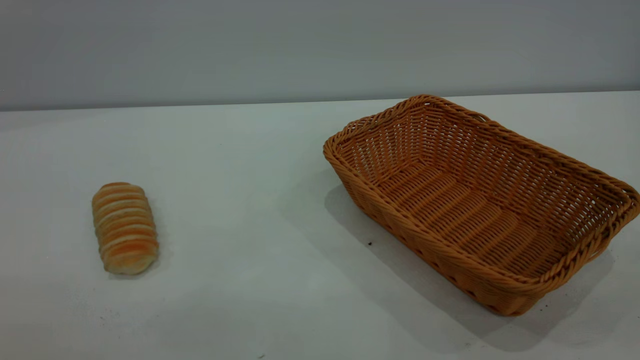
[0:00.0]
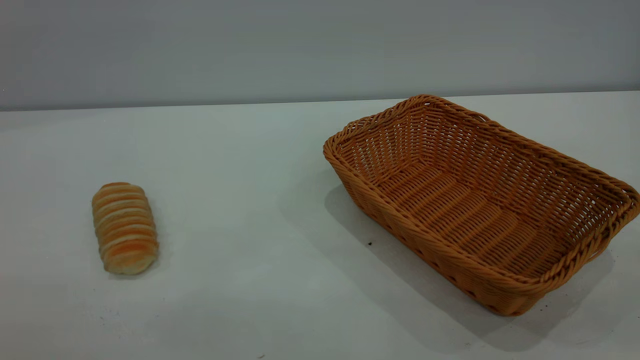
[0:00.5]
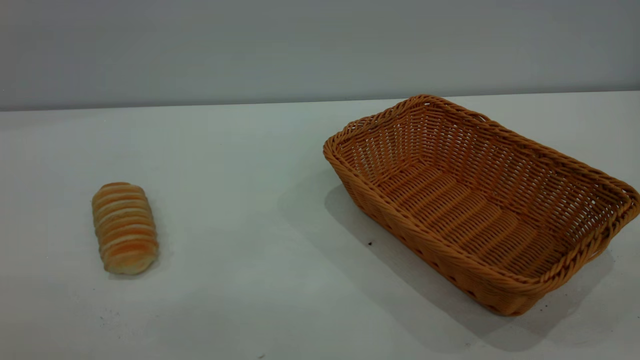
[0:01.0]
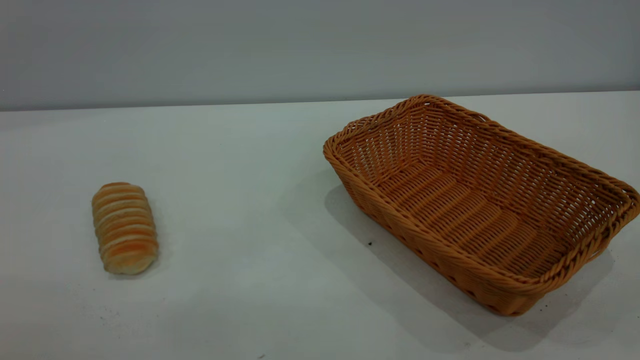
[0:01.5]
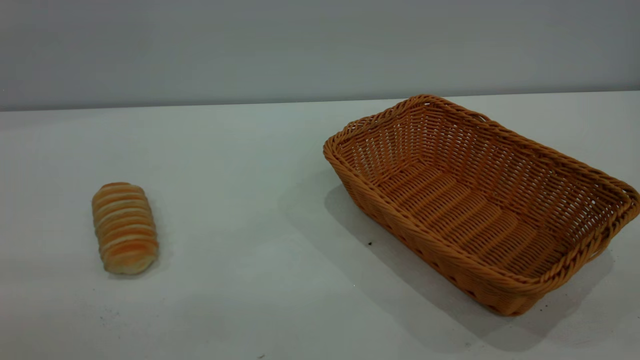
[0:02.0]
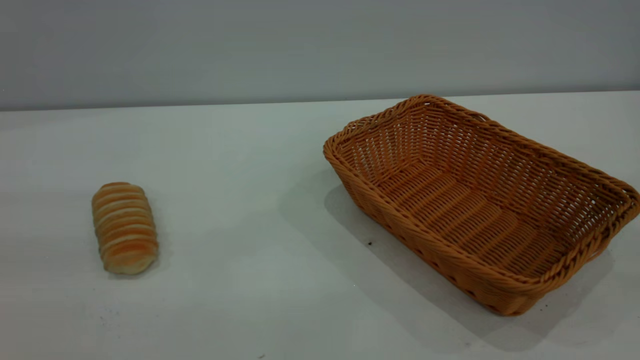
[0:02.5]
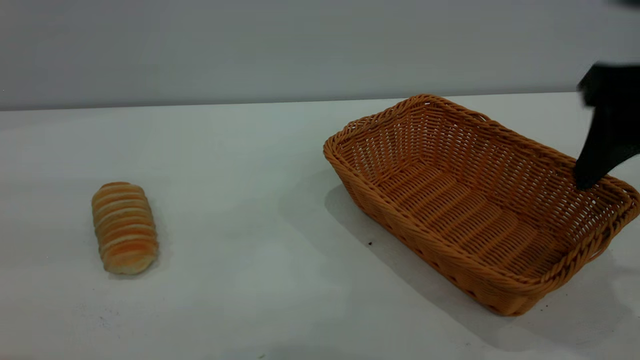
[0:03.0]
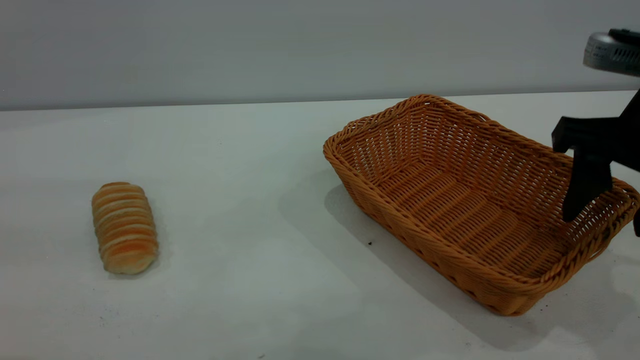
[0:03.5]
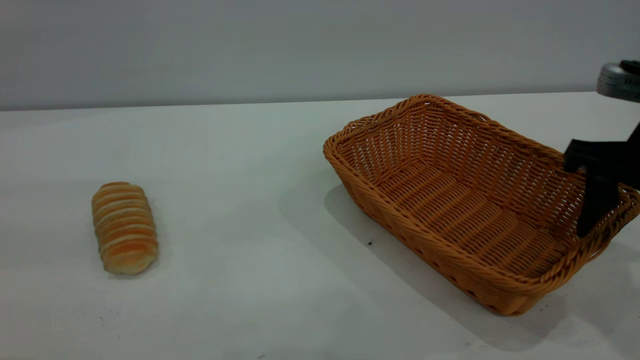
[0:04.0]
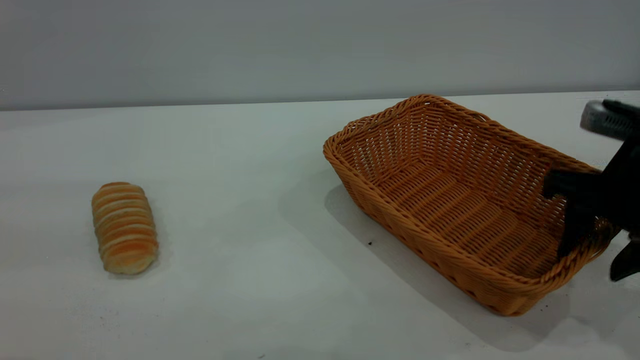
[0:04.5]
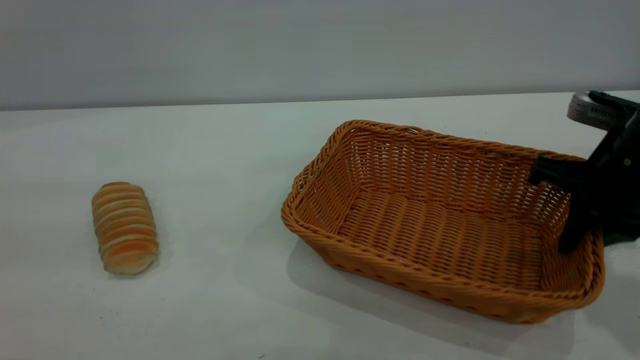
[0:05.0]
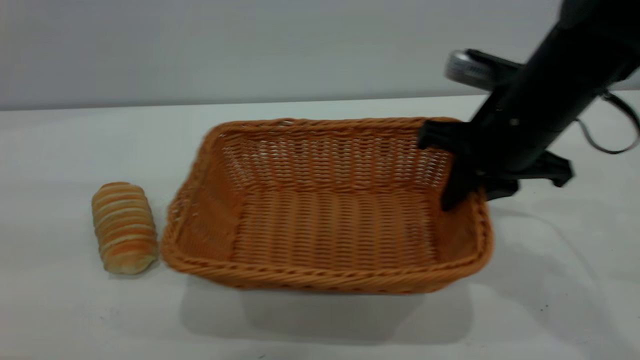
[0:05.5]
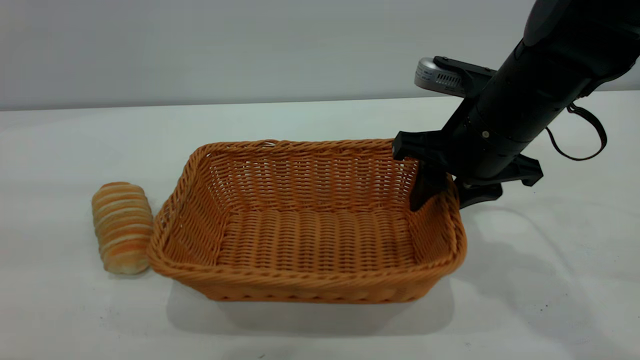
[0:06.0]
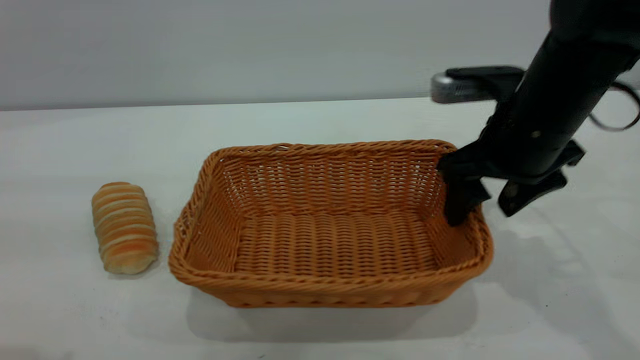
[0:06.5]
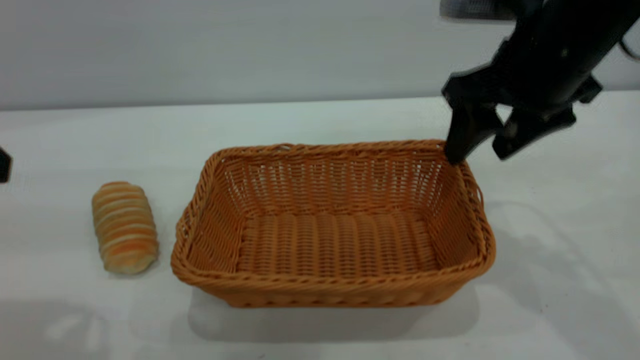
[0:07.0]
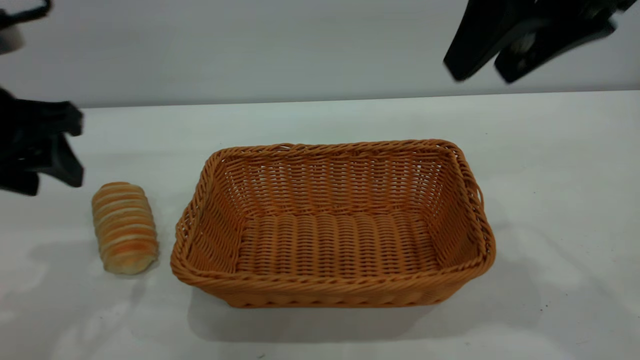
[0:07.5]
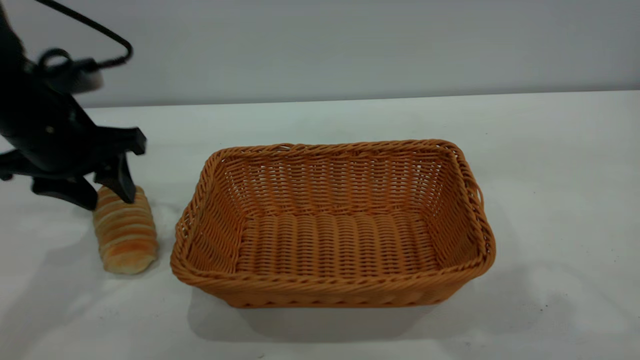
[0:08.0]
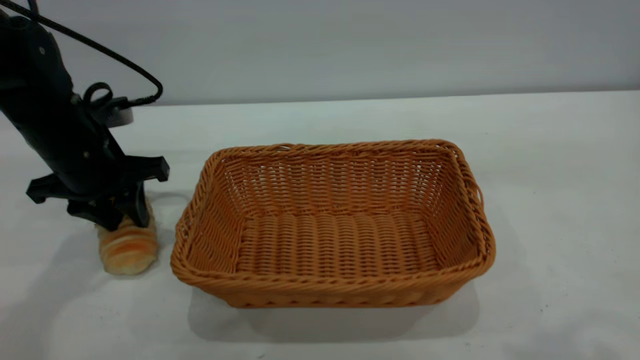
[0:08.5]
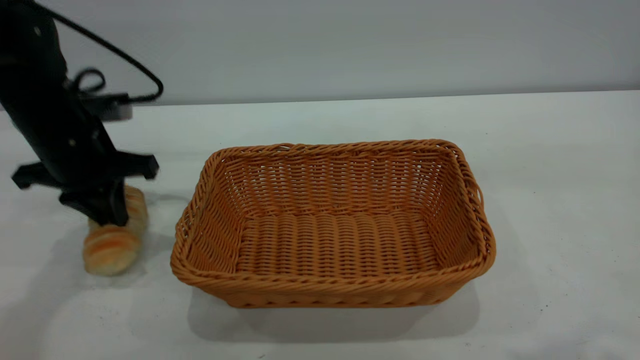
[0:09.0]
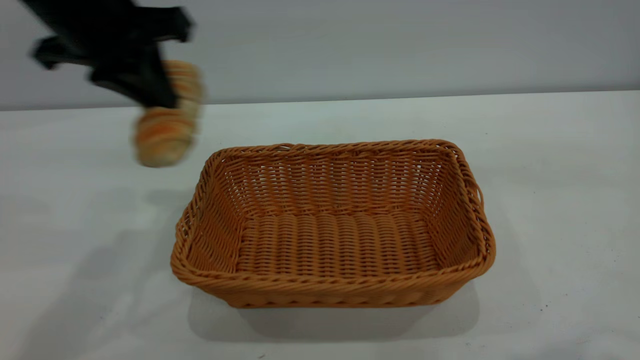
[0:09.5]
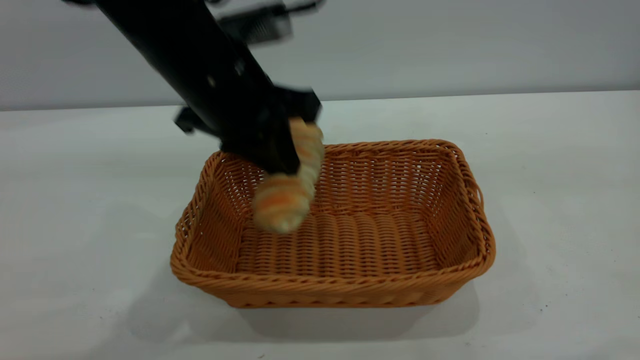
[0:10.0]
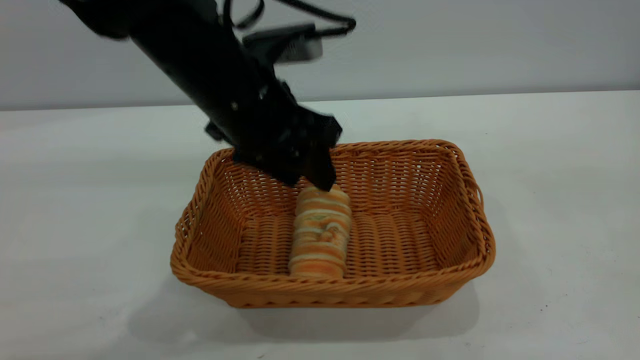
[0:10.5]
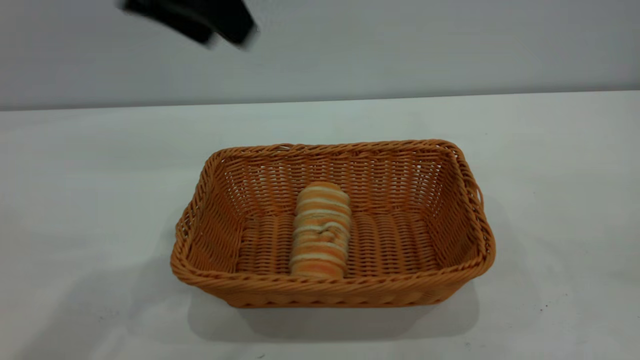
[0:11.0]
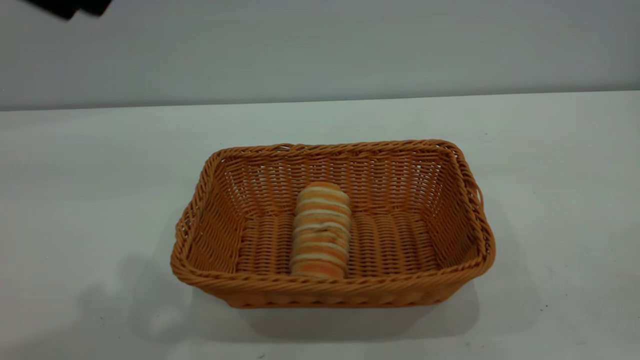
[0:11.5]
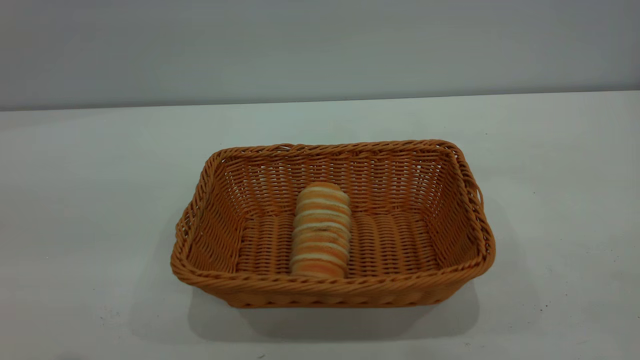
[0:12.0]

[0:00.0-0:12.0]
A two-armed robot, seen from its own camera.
Task of the whole recording: One hand grasps the yellow basket and places it in the middle of the table, while the other hand picks up the long bread and puts it into the yellow basket.
Step, 0:00.0 to 0:07.0: Move the basket to the center of view.
Step, 0:09.5 to 0:10.5: place the bread into the basket.
0:02.0 to 0:04.0: The right gripper is displaced forward and downward by about 30 cm.
0:04.0 to 0:06.0: The right gripper moves to the left and forward, about 15 cm, and closes, then opens again.
0:06.0 to 0:08.0: The right gripper moves upward and backward, some 30 cm. Meanwhile the left gripper heads forward and downward, covering some 25 cm.
0:08.0 to 0:10.0: The right gripper shifts some 10 cm backward and upward; the left gripper moves to the right, some 15 cm, and closes up.
0:10.0 to 0:12.0: The right gripper travels downward, backward and to the right by roughly 20 cm; the left gripper shifts approximately 30 cm backward, upward and to the left, and opens its fingers.

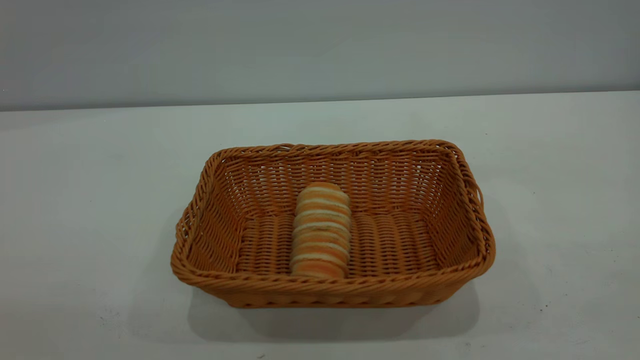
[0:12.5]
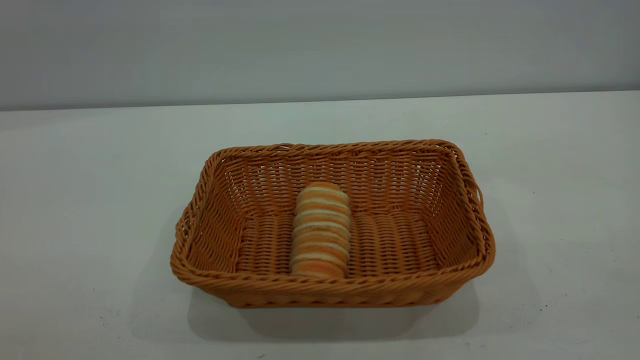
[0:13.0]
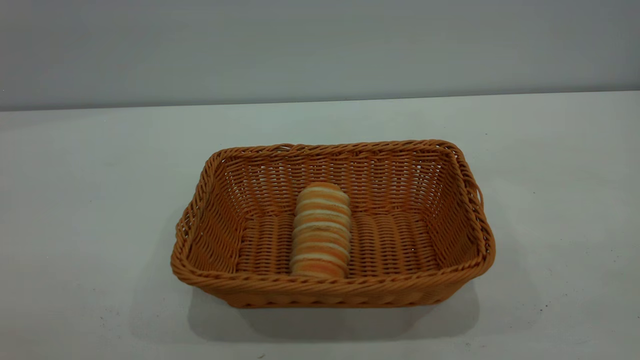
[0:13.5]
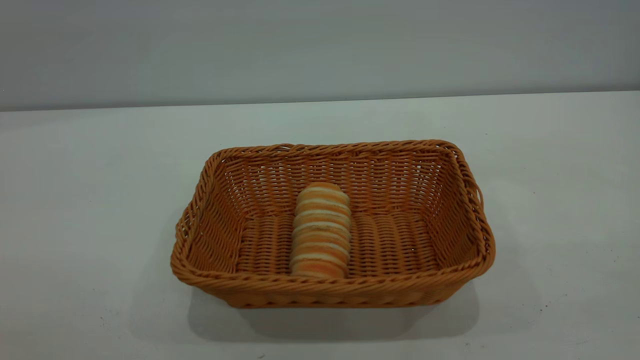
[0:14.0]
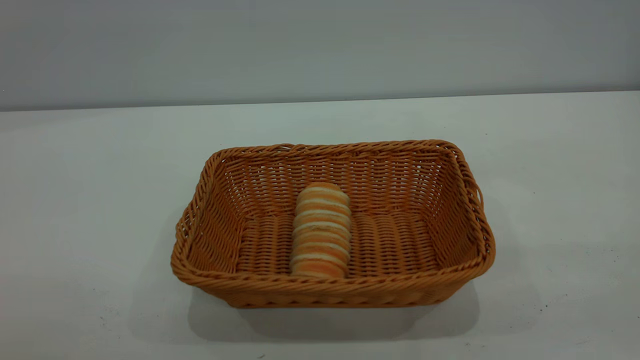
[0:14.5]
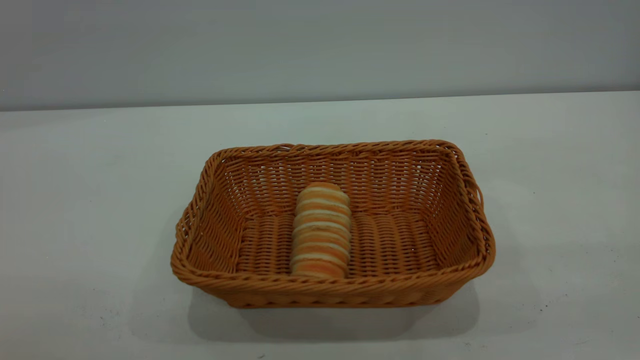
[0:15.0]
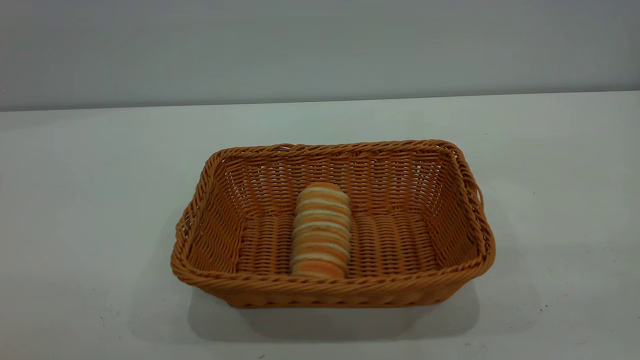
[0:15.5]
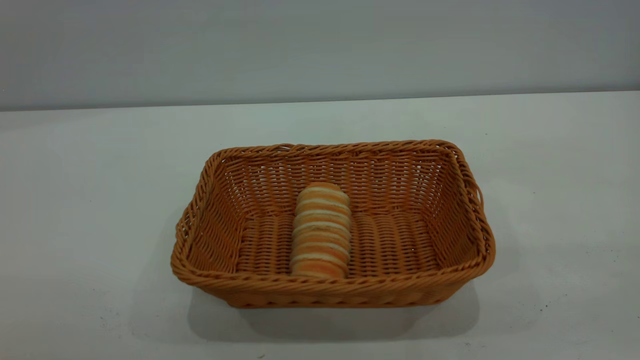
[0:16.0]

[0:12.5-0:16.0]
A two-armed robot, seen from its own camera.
Task of the whole recording: One hand grasps the yellow basket and places it in the middle of the table, while the other hand picks up the long bread and puts it into the yellow basket.
0:14.5 to 0:16.0: Neither gripper changes place.

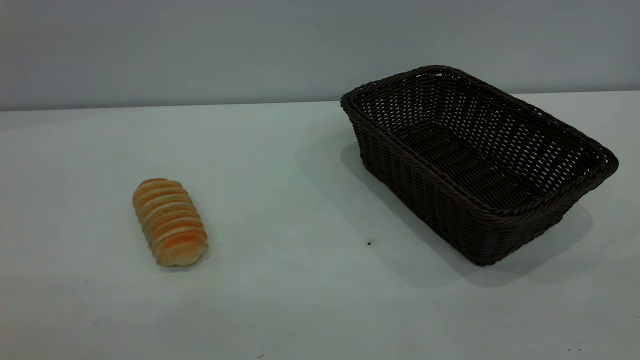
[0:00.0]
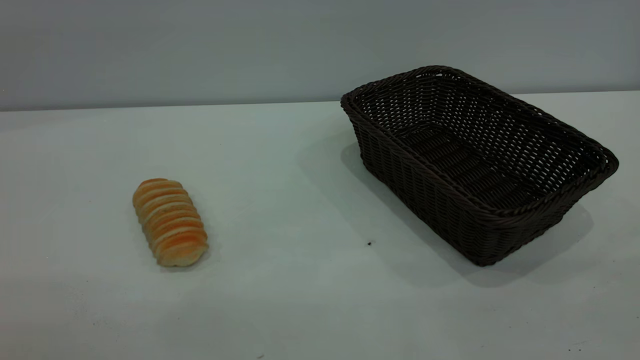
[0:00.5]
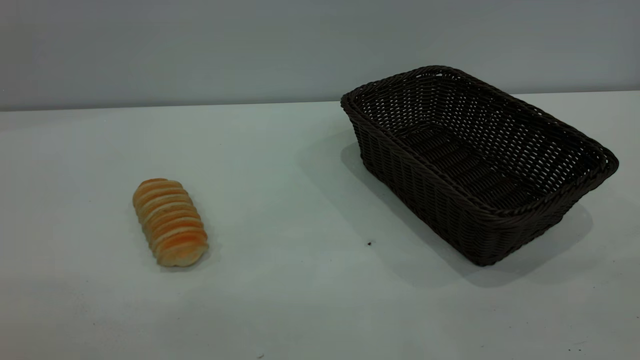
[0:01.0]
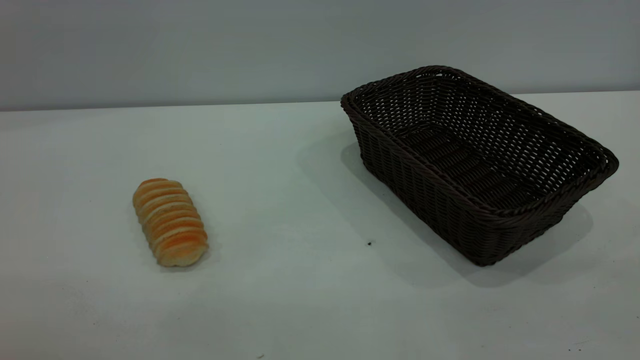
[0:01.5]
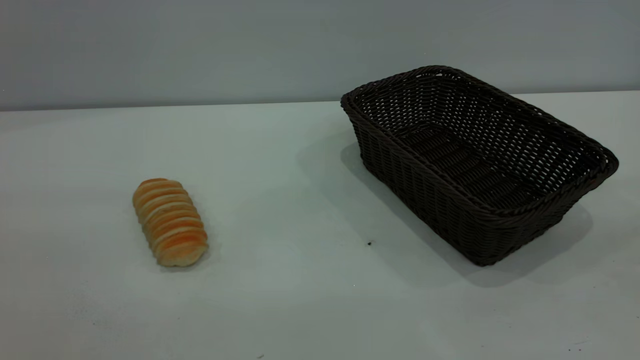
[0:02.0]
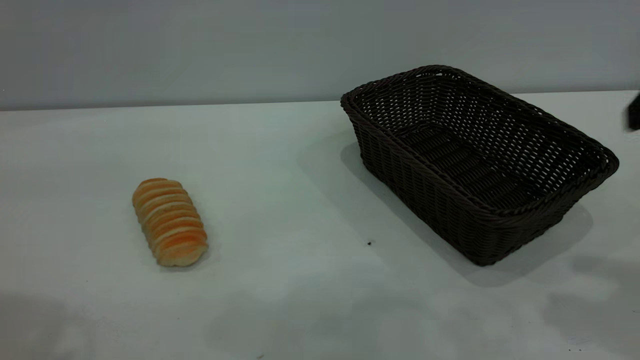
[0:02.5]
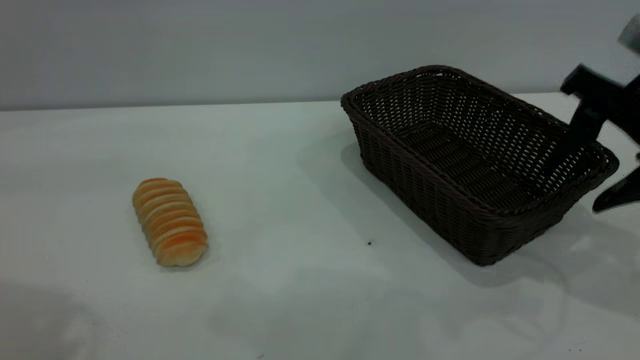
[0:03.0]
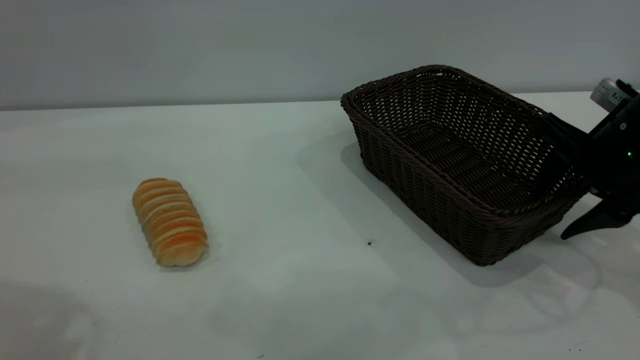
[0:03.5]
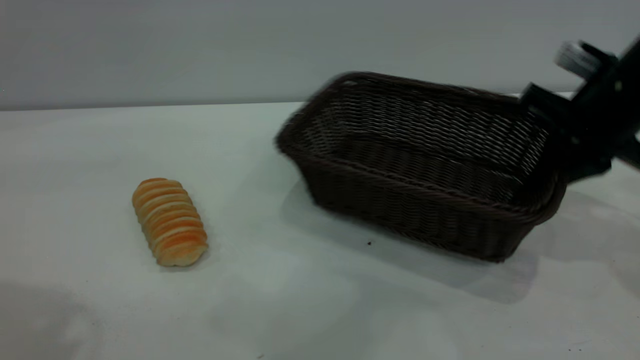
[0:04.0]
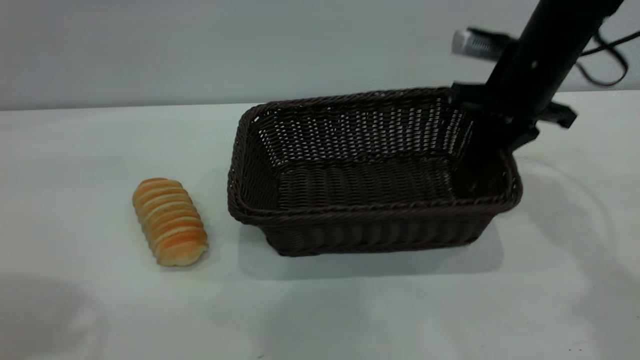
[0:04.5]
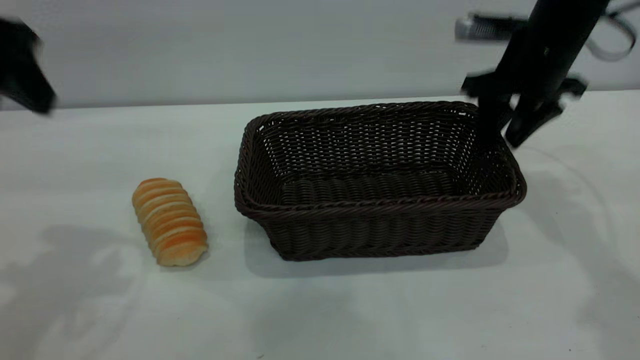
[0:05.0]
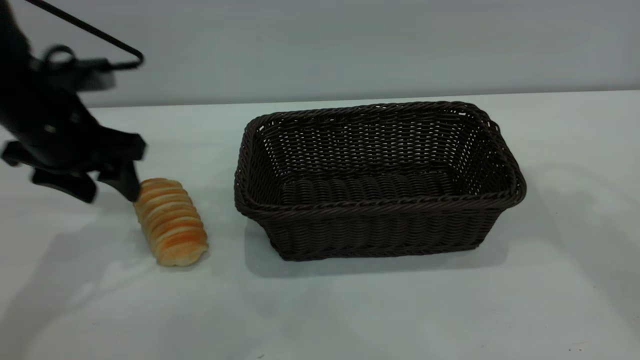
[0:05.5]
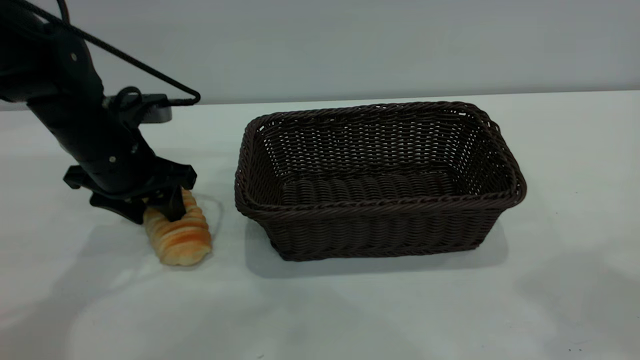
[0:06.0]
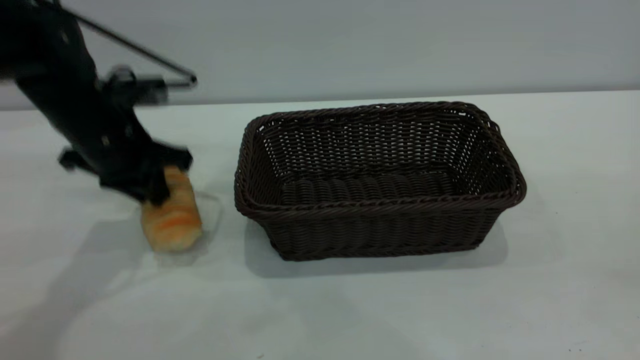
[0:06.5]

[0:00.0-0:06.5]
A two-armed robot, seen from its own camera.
Task of the whole recording: One hand grasps the black basket and places it in the middle of the table, while the other hand picks up the long bread and puts it into the black basket.
Step, 0:00.0 to 0:05.0: Move the basket to the center of view.
0:02.0 to 0:04.5: The left gripper is displaced forward by roughly 15 cm; the right gripper goes about 40 cm forward and downward, and closes its fingers.
0:04.5 to 0:06.5: The left gripper travels downward and forward by roughly 25 cm, and closes. The right gripper goes approximately 40 cm backward and upward, and opens its fingers.
